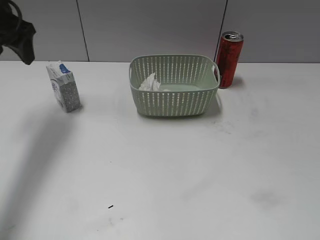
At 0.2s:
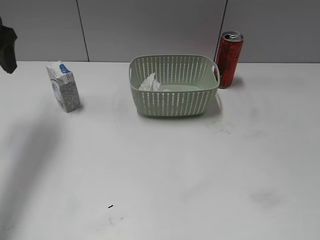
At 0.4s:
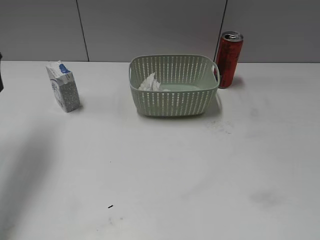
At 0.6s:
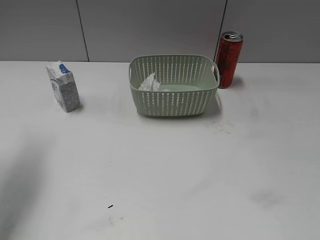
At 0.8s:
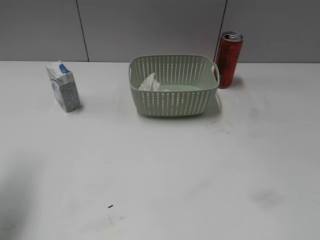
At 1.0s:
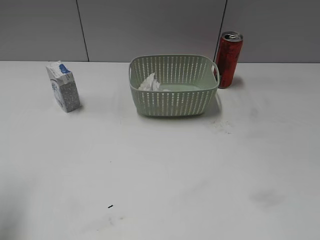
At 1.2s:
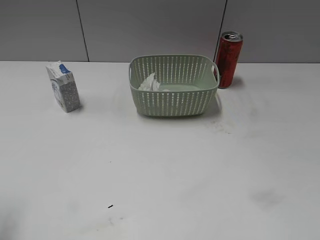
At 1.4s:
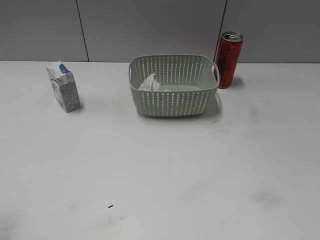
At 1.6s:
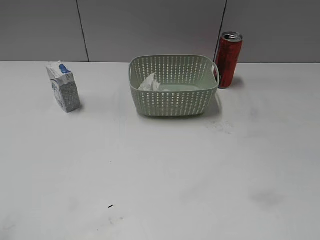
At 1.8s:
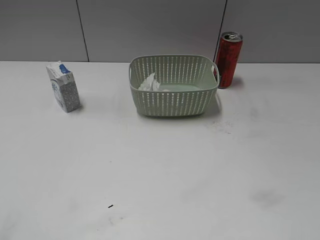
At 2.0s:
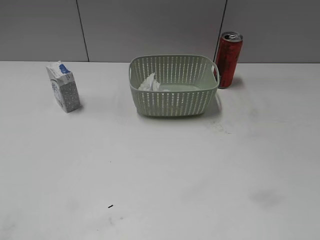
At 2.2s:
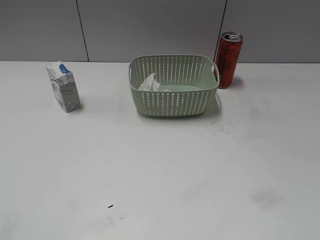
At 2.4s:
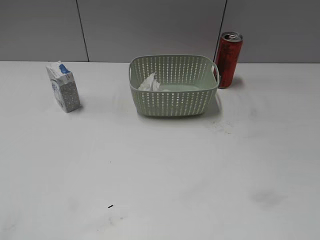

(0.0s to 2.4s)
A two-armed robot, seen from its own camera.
0.0s - 1.2s: The left gripper goes approximately 25 cm backward.

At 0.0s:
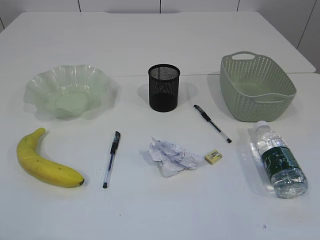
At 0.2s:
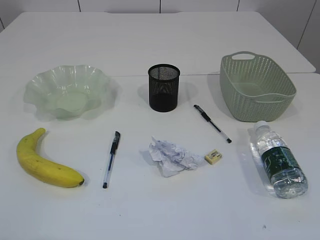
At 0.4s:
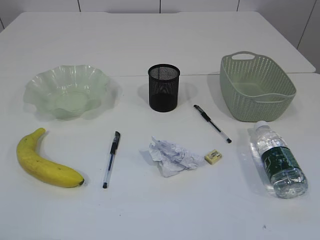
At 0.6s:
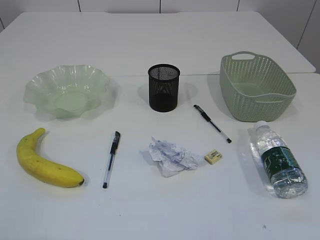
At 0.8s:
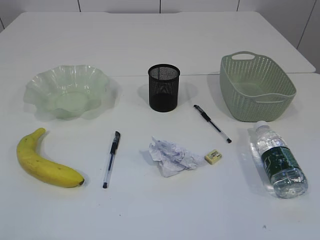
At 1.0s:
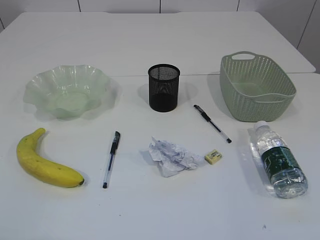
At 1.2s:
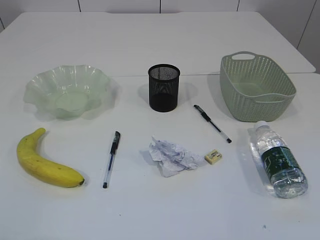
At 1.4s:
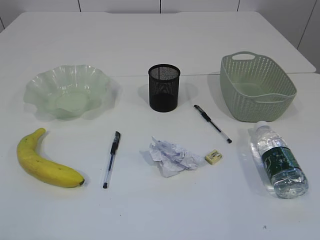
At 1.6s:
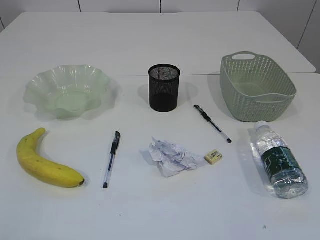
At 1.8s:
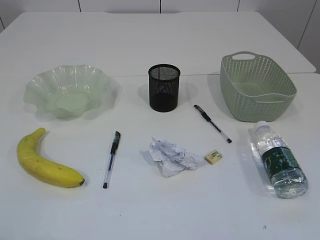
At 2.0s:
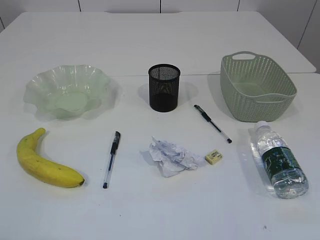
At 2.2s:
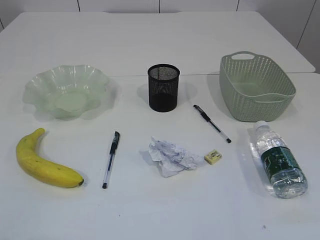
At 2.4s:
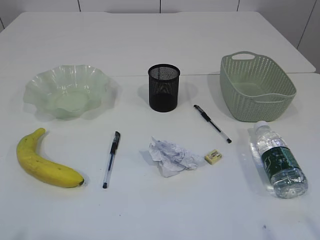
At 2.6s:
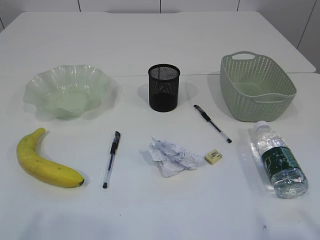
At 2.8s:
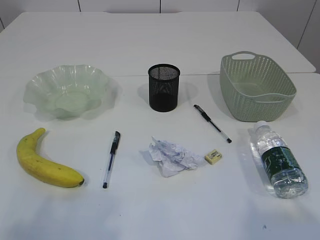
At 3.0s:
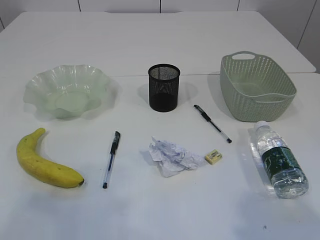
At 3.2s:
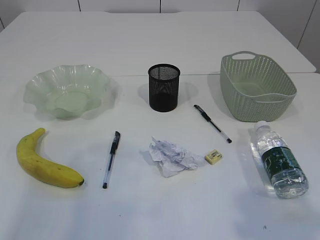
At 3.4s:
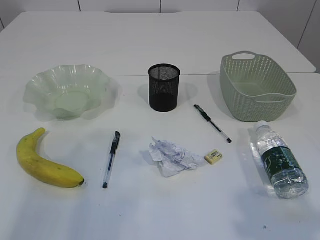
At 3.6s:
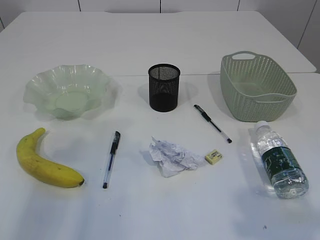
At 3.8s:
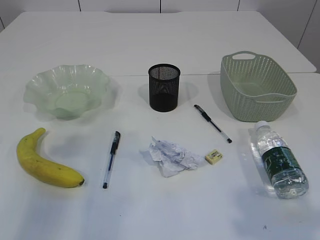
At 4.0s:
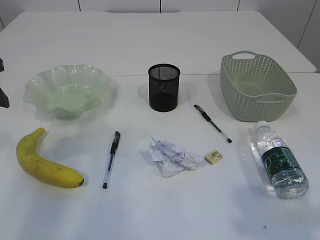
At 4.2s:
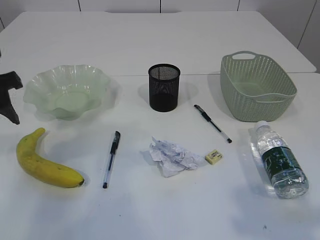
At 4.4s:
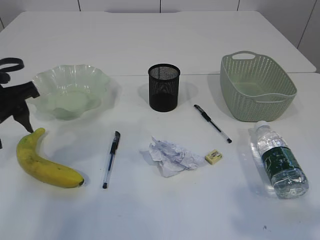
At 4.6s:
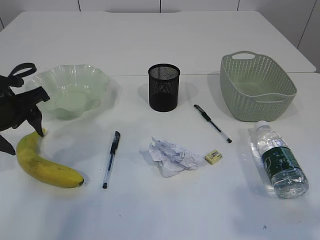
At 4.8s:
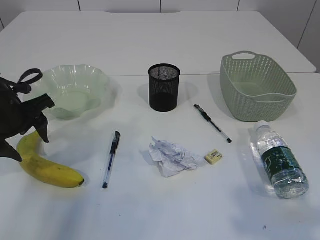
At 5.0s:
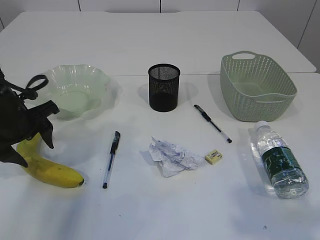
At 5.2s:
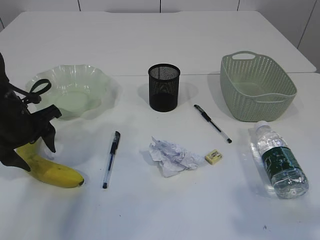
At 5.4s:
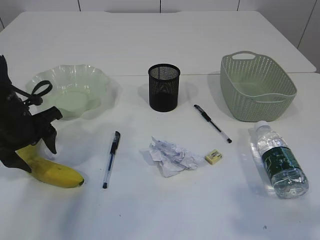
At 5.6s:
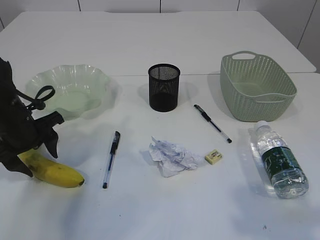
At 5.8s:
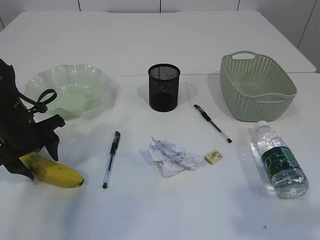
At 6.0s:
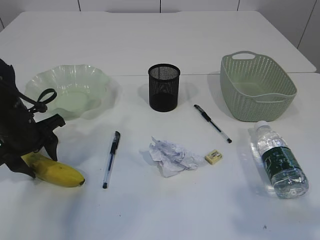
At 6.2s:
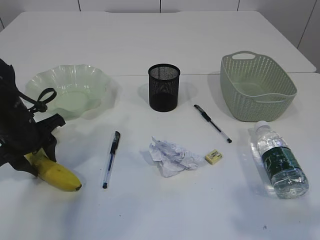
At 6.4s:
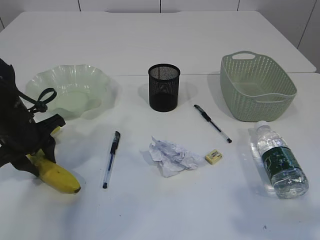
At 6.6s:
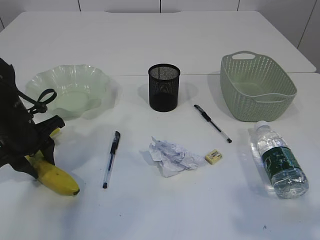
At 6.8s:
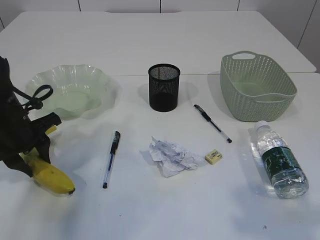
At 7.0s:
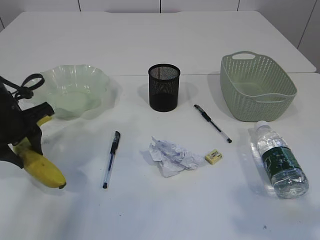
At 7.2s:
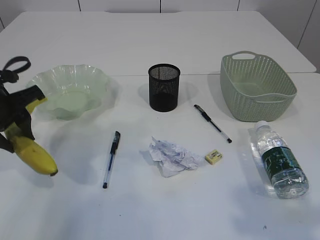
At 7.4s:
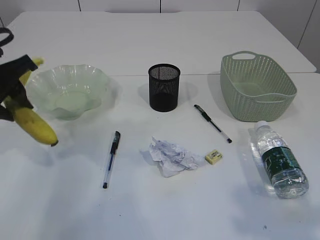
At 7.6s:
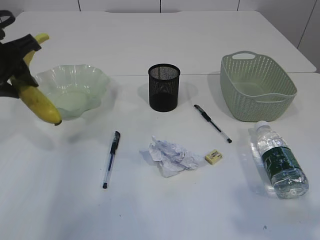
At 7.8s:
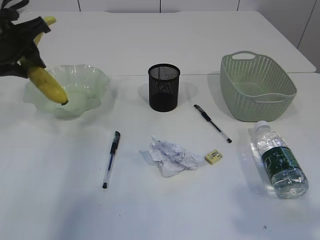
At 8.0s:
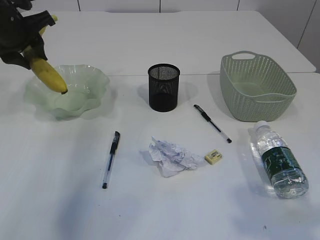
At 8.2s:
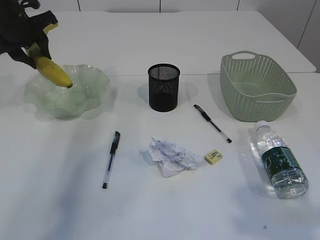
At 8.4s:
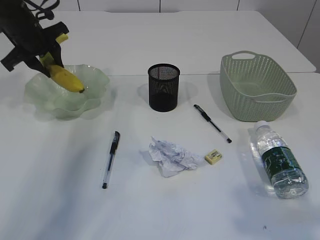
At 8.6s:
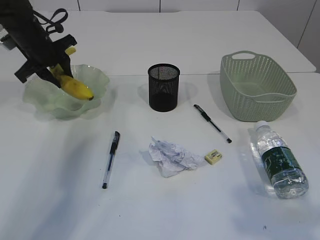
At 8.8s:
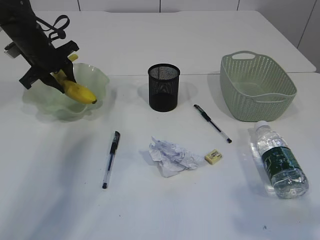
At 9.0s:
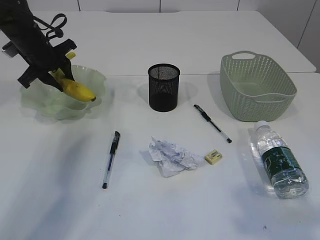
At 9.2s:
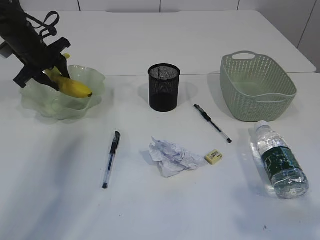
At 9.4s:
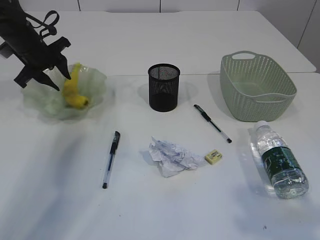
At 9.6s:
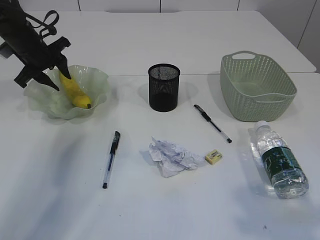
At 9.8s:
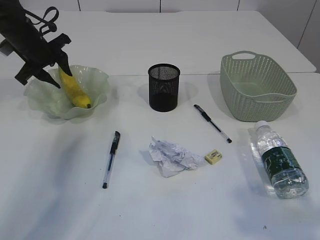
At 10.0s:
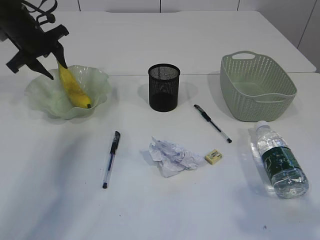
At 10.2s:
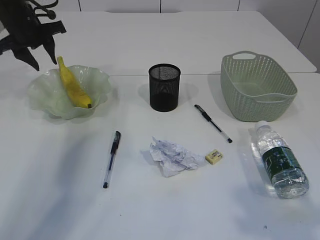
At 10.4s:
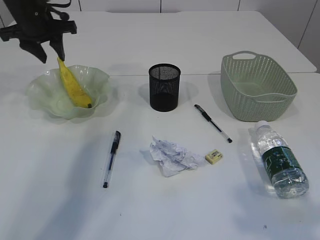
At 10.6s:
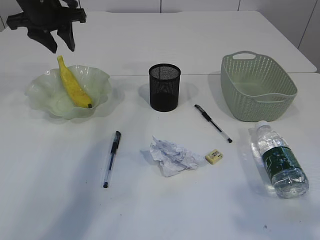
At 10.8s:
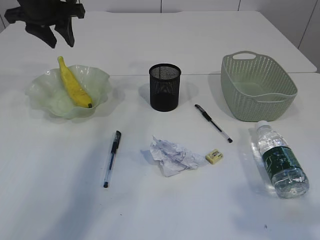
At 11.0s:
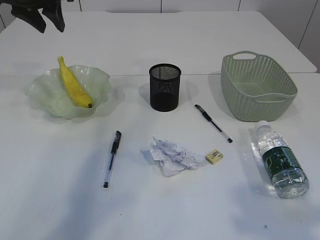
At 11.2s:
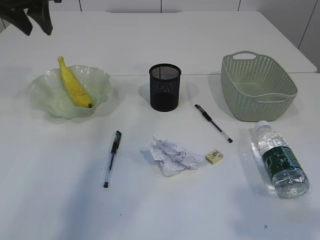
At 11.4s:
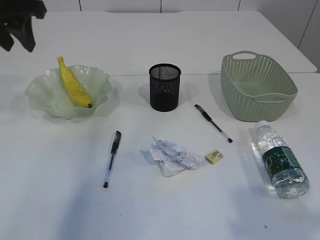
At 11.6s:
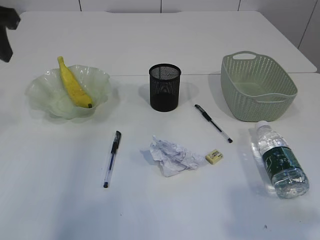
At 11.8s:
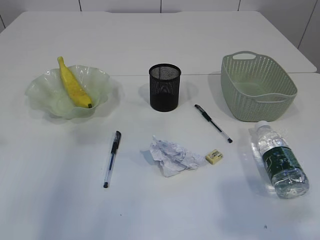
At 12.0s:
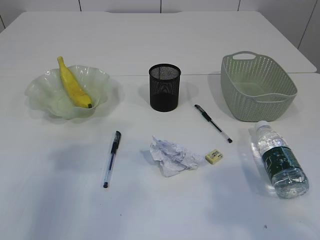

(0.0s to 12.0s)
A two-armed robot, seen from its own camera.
Step, 7.2s - 10.8s: Place the banana in the plate.
1.6s - 3.0s: The left gripper travels forward and upward by about 10 cm.
3.0s - 4.4s: The left gripper is displaced forward and downward by approximately 25 cm.
4.4s - 6.0s: The left gripper travels downward by roughly 10 cm.
6.0s - 7.6s: The left gripper moves upward, about 15 cm.
7.6s - 9.0s: The left gripper moves forward and downward, roughly 20 cm.
9.0s - 10.4s: The left gripper moves upward, roughly 5 cm.
10.4s - 12.0s: The left gripper goes roughly 25 cm backward.

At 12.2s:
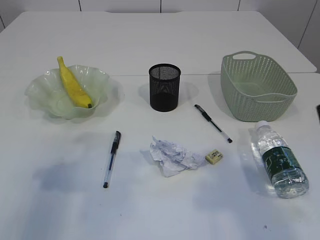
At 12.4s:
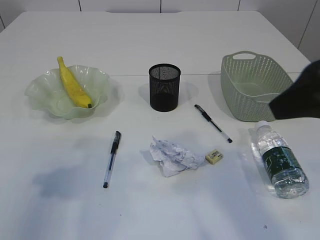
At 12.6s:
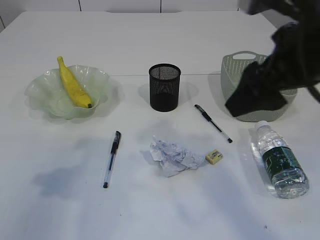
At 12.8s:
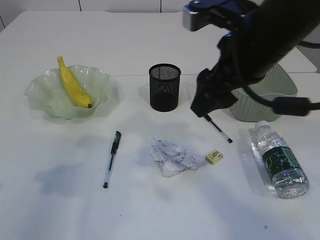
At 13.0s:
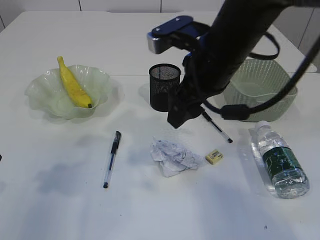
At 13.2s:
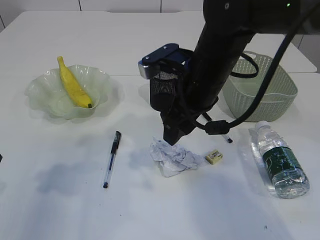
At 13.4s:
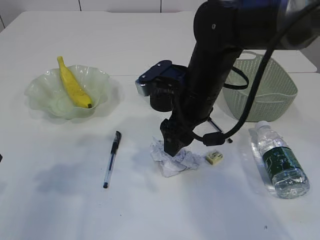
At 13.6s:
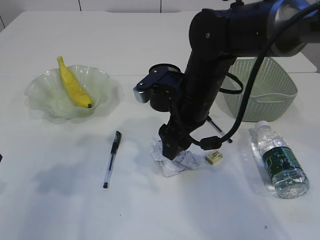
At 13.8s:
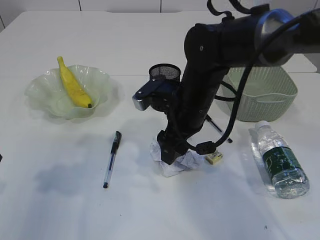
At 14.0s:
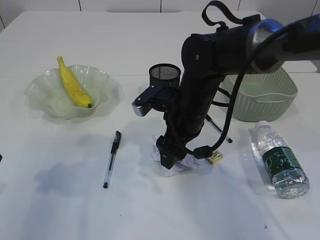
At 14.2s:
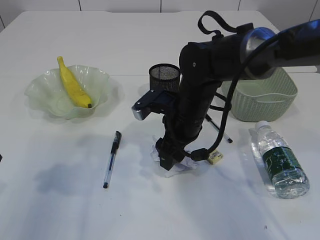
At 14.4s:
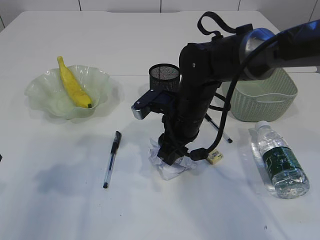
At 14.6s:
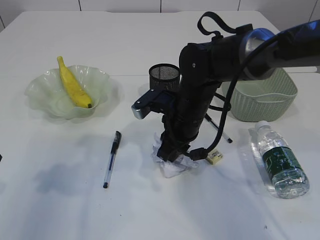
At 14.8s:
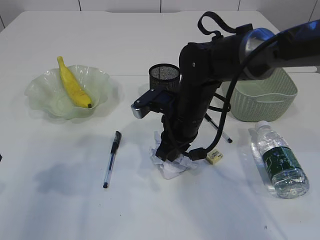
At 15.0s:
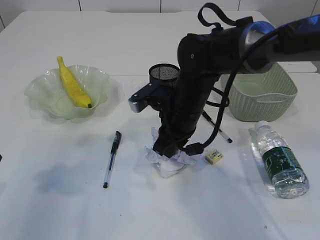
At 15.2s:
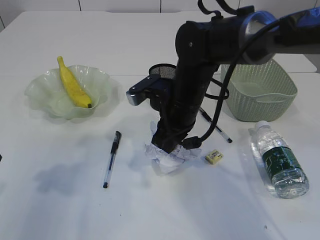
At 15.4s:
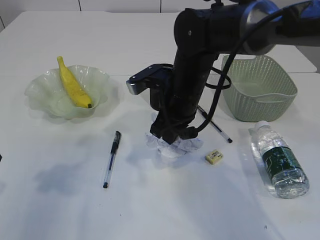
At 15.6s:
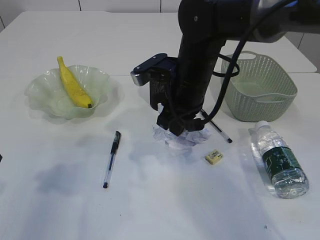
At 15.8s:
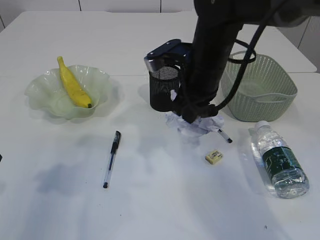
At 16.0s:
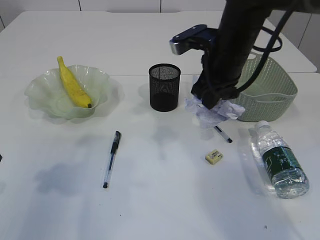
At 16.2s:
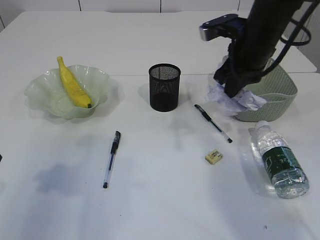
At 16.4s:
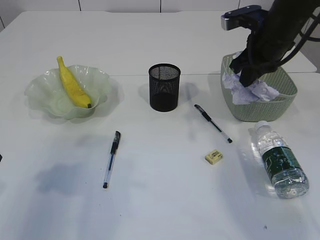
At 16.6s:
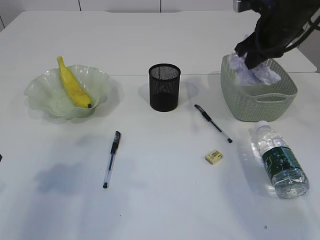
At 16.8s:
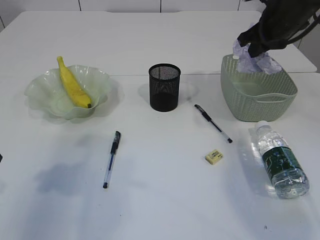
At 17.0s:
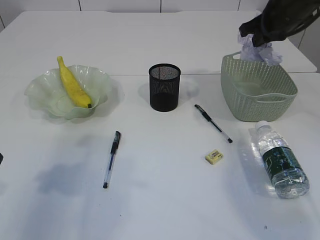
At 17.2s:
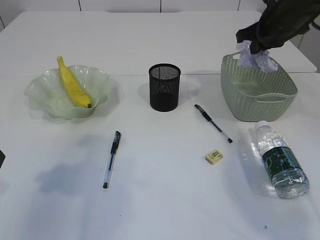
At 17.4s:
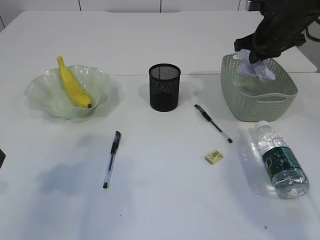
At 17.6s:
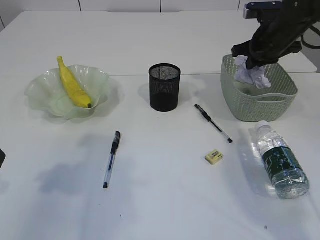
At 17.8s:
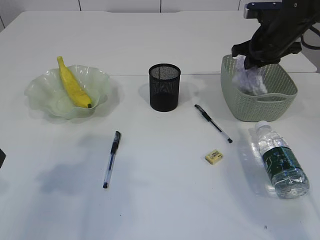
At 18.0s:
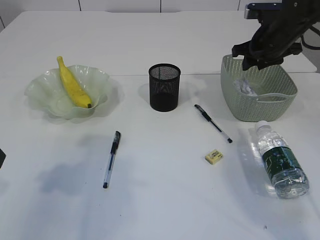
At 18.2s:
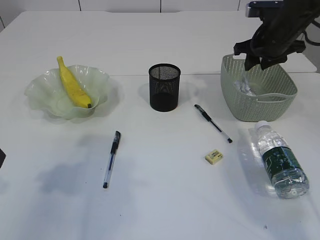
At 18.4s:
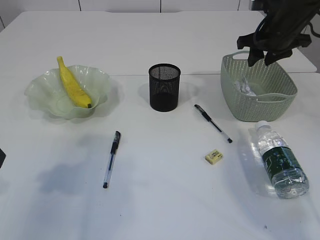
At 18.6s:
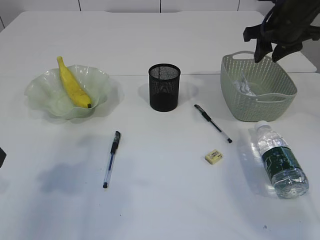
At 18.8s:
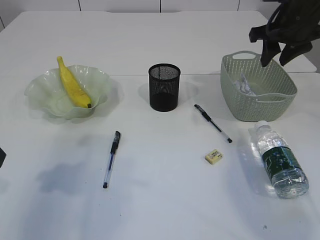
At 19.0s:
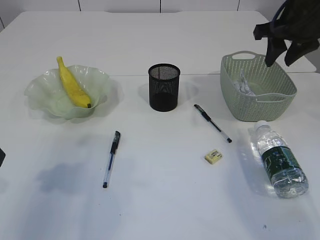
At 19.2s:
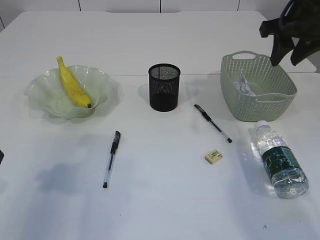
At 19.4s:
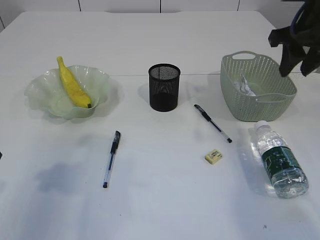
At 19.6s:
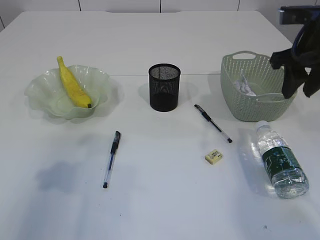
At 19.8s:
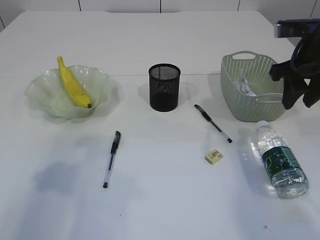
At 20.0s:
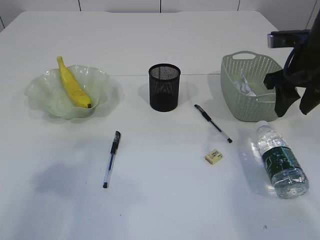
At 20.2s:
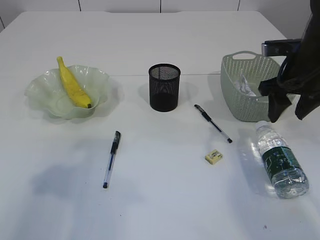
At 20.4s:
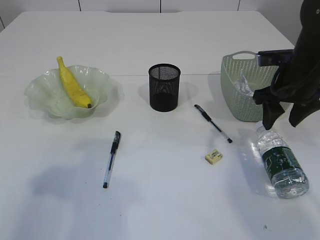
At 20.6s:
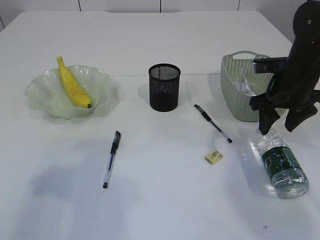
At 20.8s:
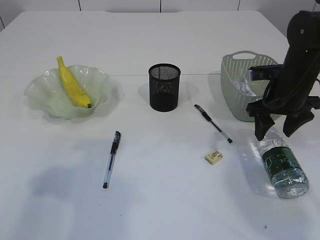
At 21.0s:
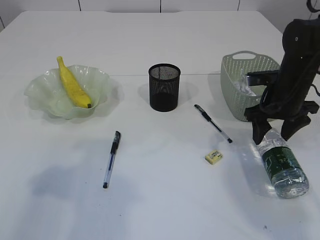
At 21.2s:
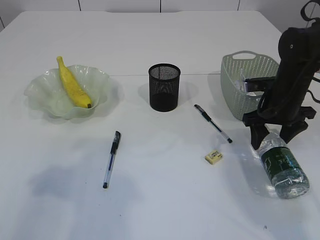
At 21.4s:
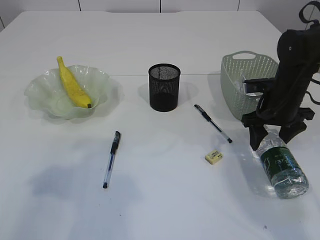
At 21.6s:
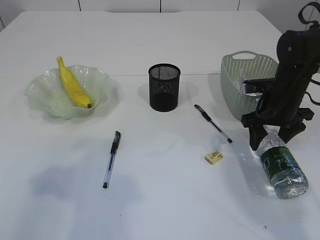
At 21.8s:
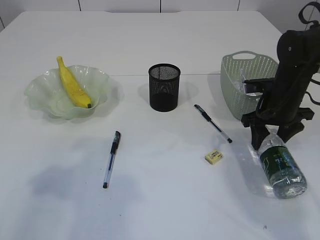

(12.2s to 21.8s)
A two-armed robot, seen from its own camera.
Step, 12.2s - 15.4s: Pick up the waste paper.
Step, 15.6s - 18.4s: Place the waste paper in the basket.
12.2s - 13.8s: The right gripper moves forward, to the left and downward, some 30 cm.
13.8s - 15.4s: The right gripper closes its fingers.
15.4s - 17.0s: The right gripper travels to the right, upward and forward by roughly 25 cm.
17.0s - 18.6s: The right gripper opens.
18.6s - 20.2s: The right gripper shifts some 10 cm backward.
20.2s - 21.8s: The right gripper is displaced downward by roughly 10 cm.
